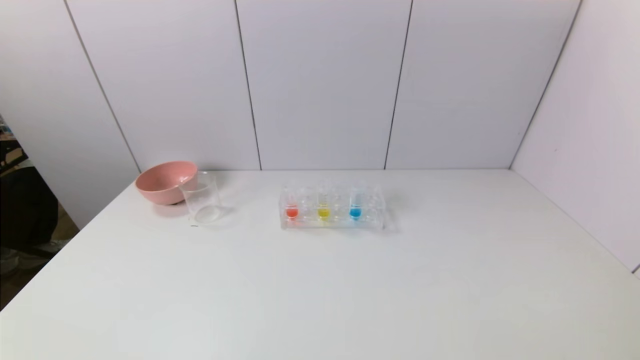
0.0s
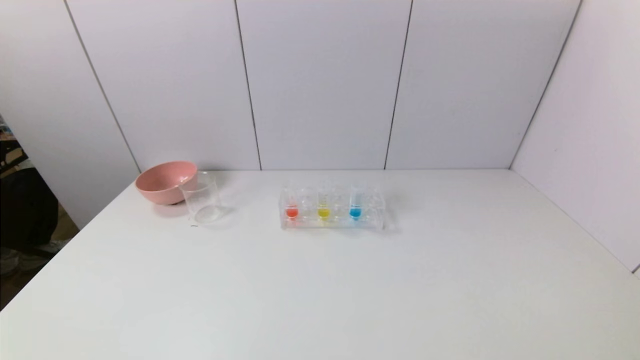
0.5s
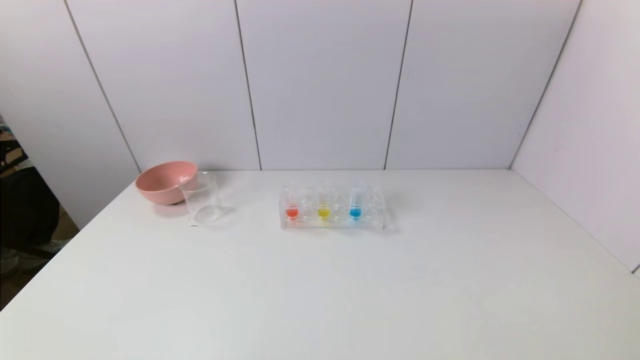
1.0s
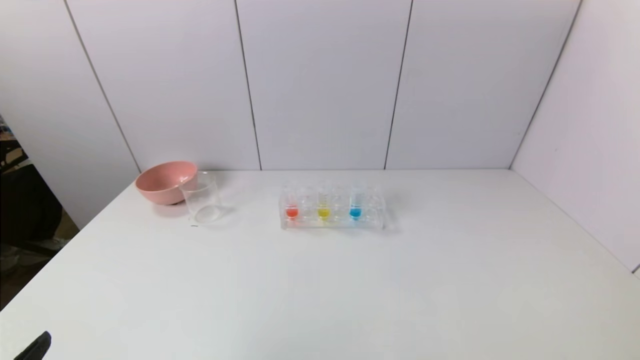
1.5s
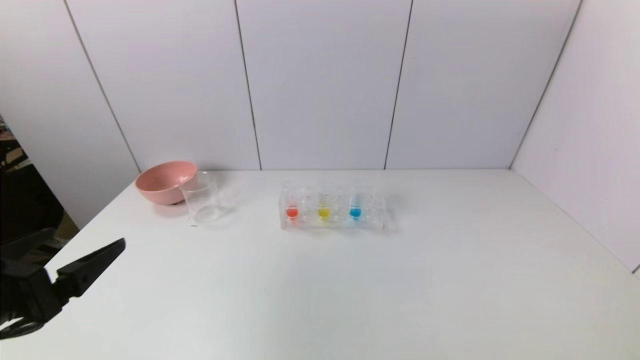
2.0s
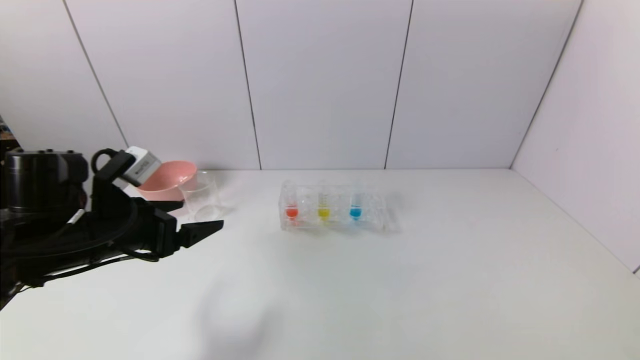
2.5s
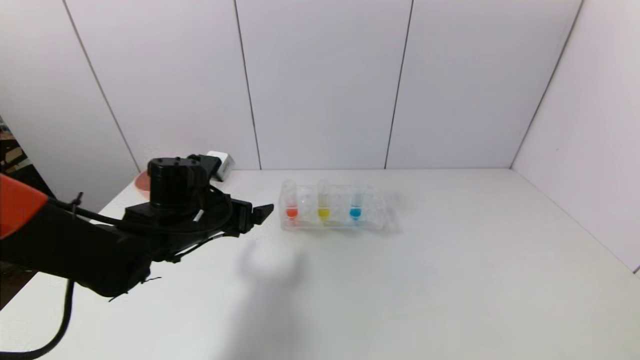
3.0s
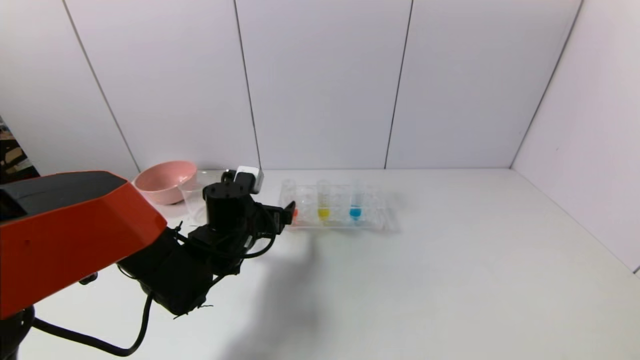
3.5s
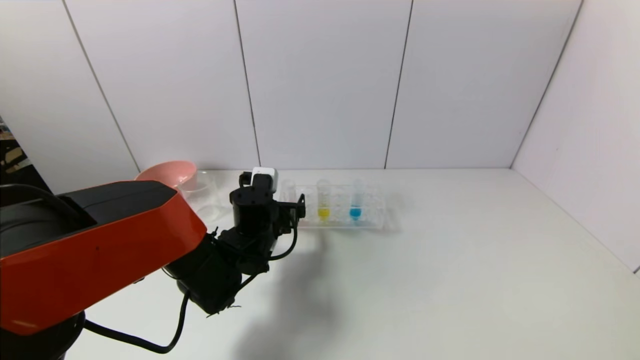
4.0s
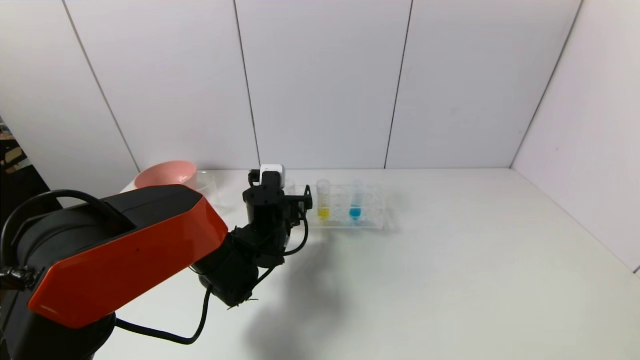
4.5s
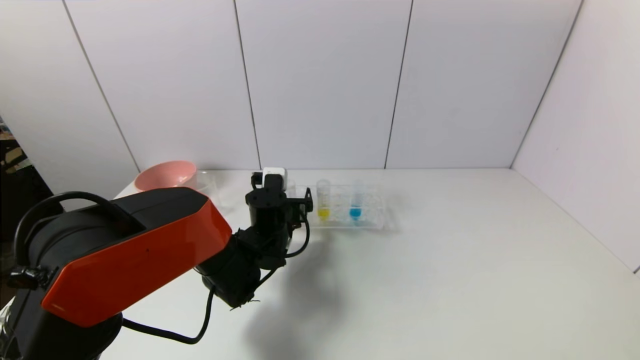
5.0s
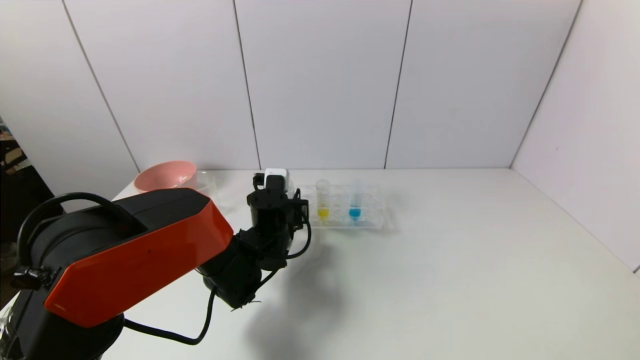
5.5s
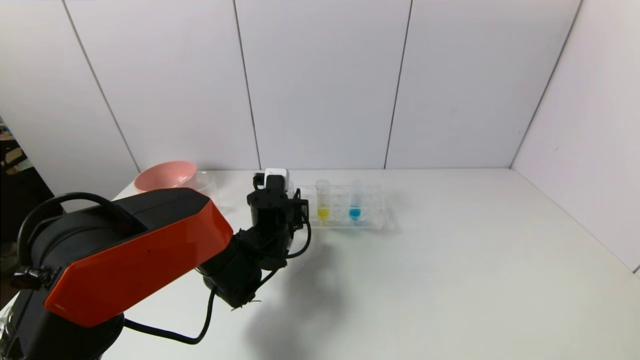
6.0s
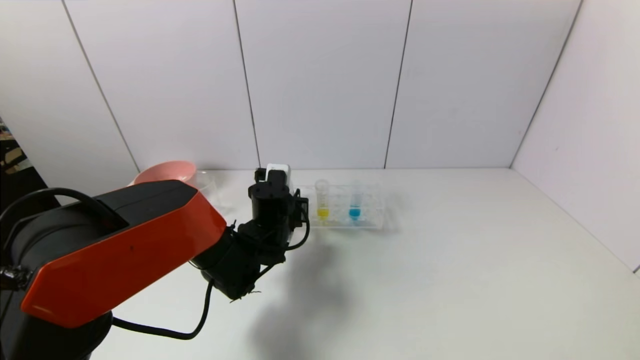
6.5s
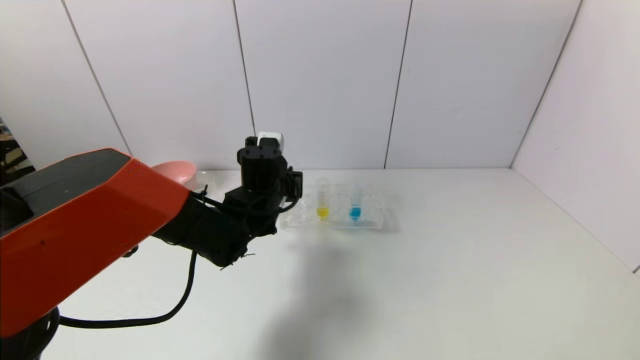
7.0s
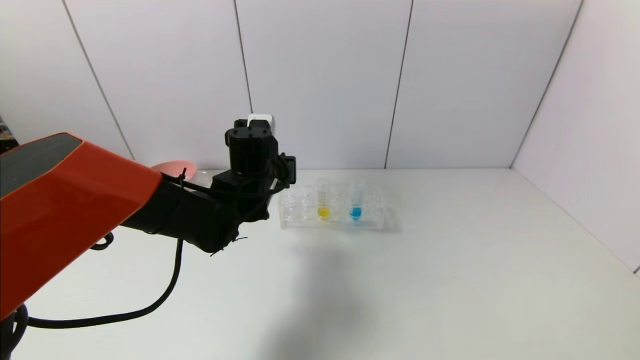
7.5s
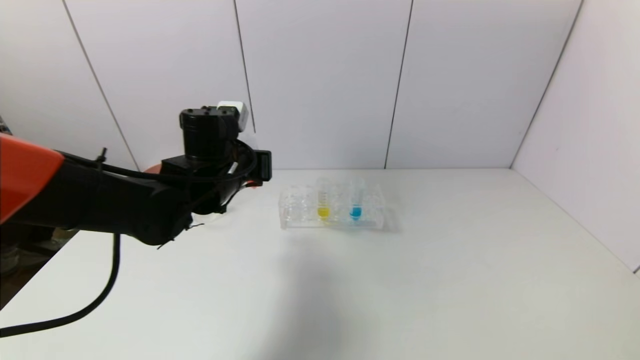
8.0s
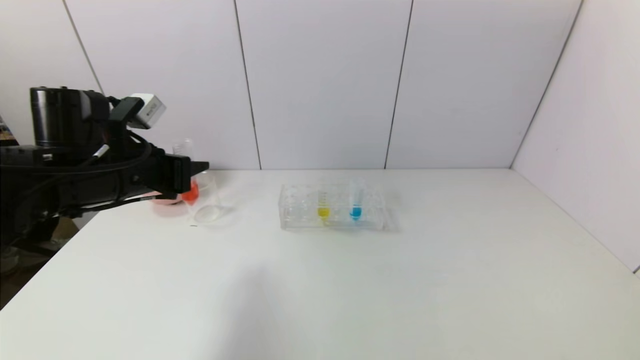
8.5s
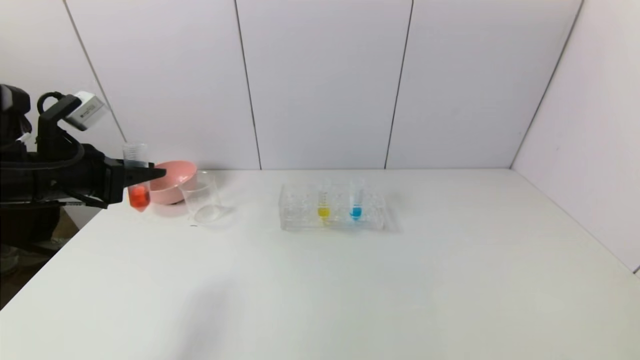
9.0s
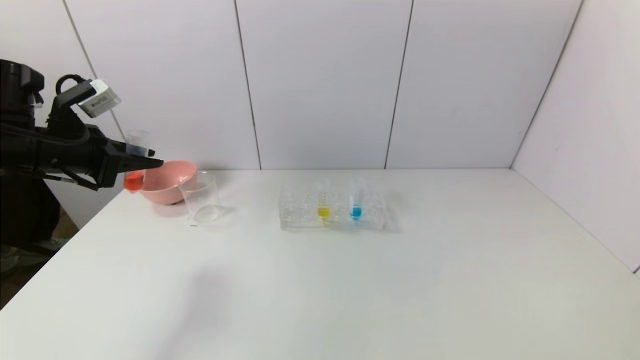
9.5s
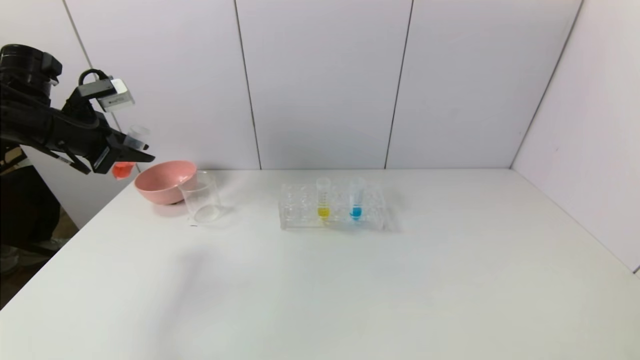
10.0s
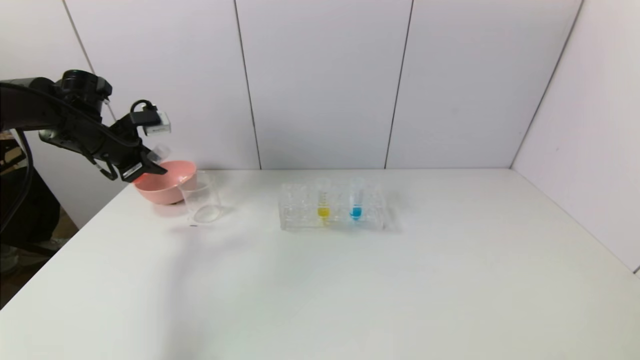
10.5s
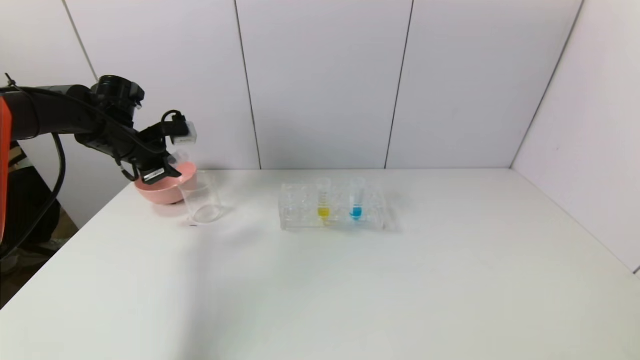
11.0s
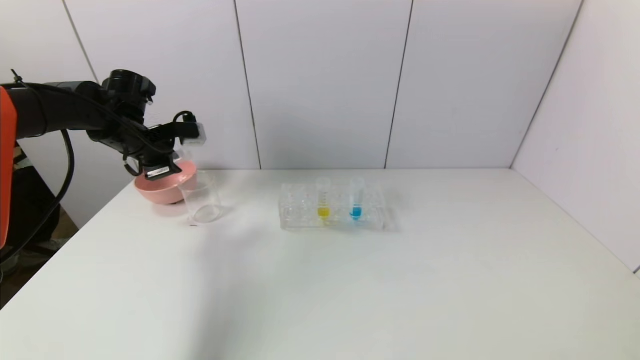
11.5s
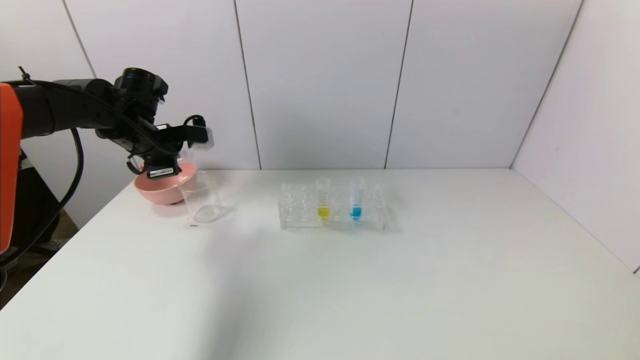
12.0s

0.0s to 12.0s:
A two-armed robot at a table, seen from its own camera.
Task of the whole recording: pick up the test tube with red pigment and the test tube with blue pigment by grippers and pour them into the container.
Step, 0.0s to 6.5s: Grasp the red reagent with the left gripper.
0.0s to 2.0s: The left gripper travels forward and upward by about 20 cm.
2.0s to 4.0s: The left gripper goes approximately 30 cm forward, to the right and downward.
4.0s to 6.0s: The left gripper closes up.
6.0s to 8.0s: The left gripper shifts about 15 cm upward and to the left.
8.0s to 10.0s: The left gripper moves to the left, about 25 cm.
10.0s to 12.0s: The left gripper heads to the right and forward, covering about 10 cm.

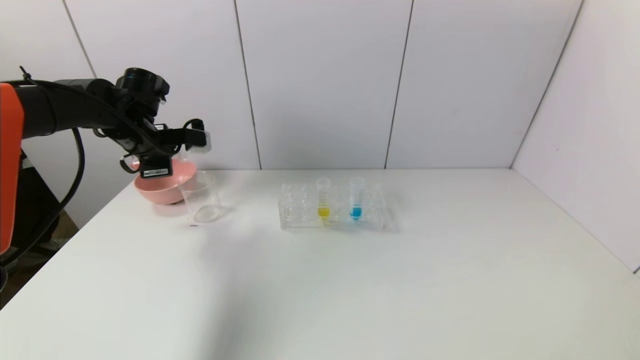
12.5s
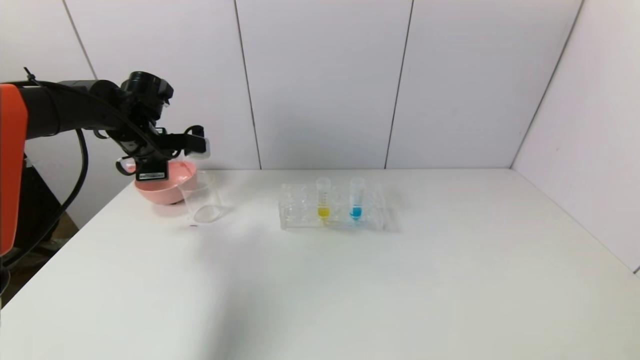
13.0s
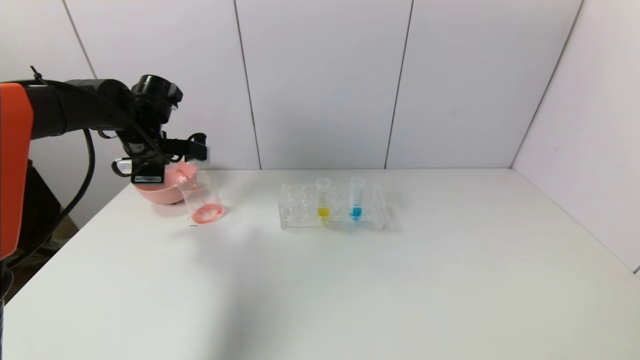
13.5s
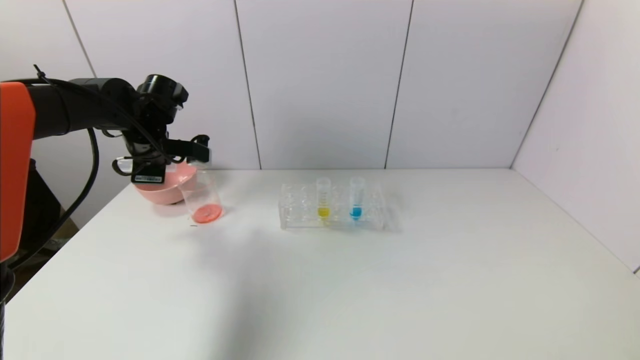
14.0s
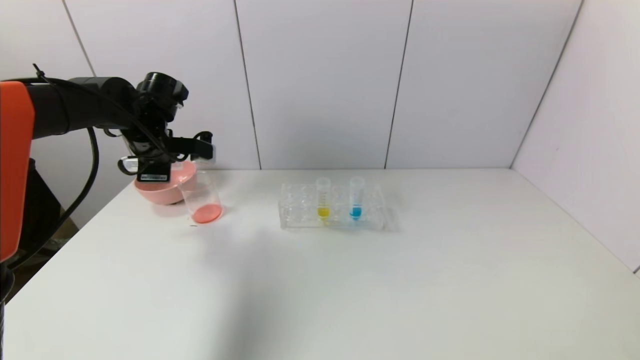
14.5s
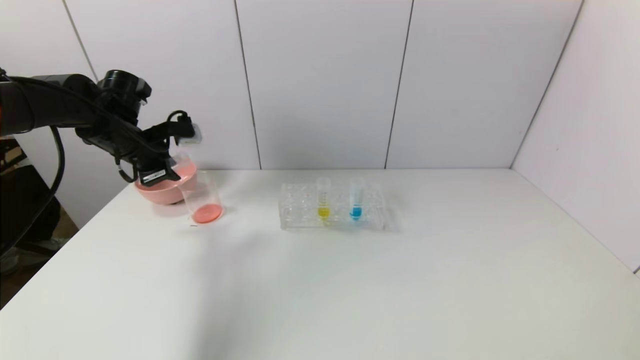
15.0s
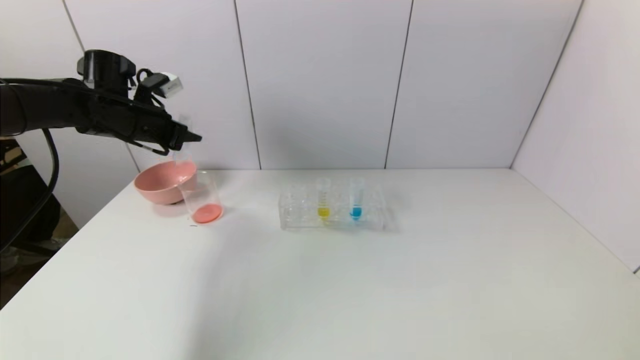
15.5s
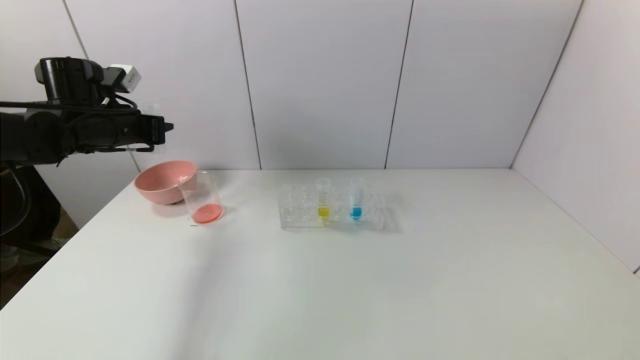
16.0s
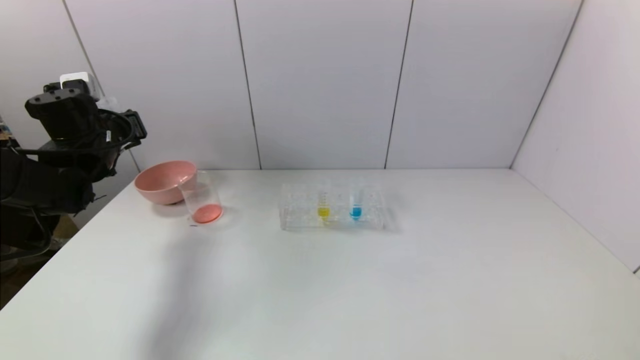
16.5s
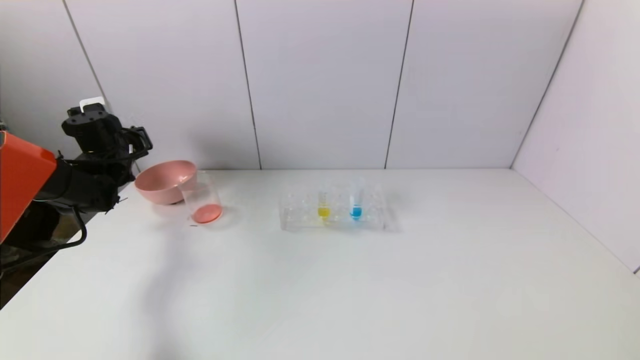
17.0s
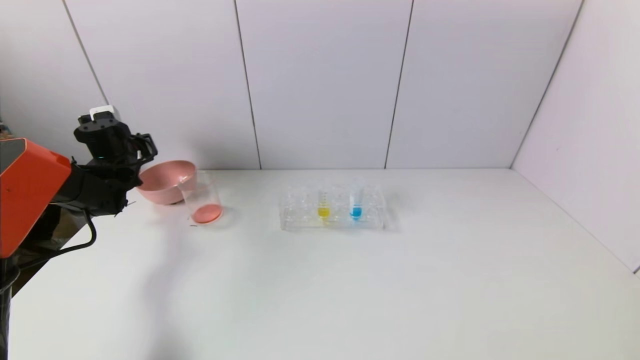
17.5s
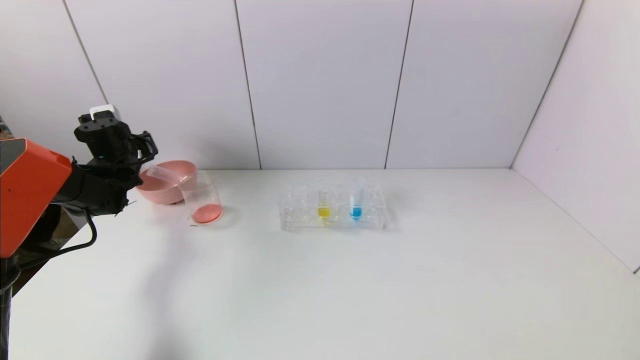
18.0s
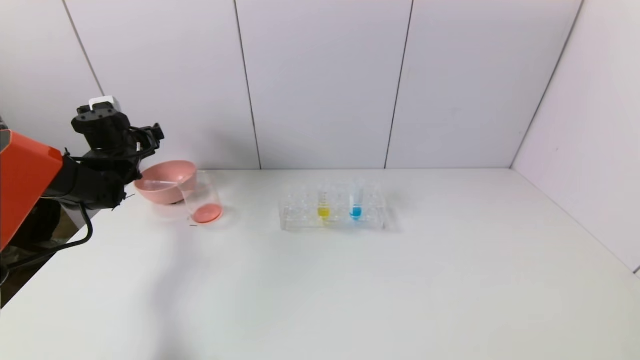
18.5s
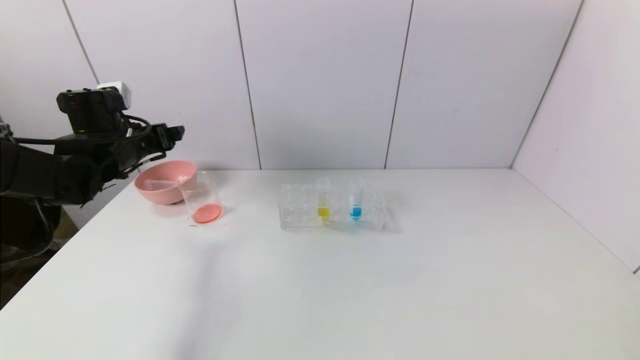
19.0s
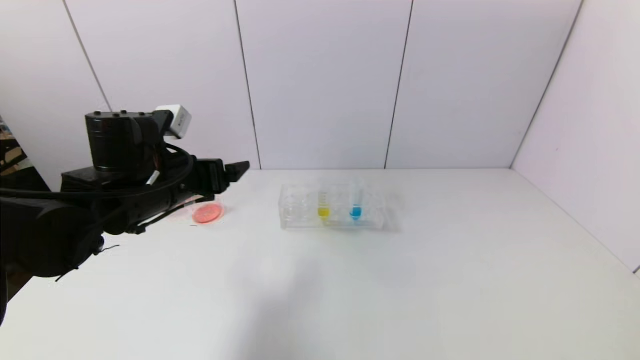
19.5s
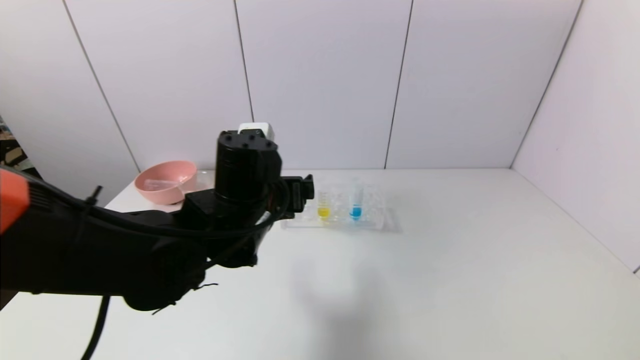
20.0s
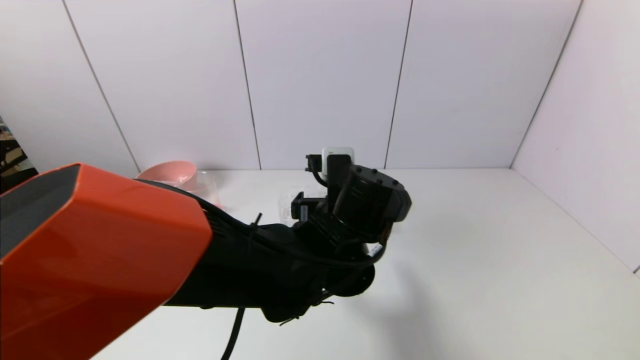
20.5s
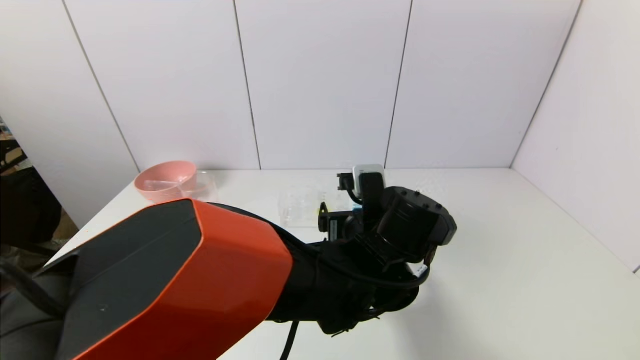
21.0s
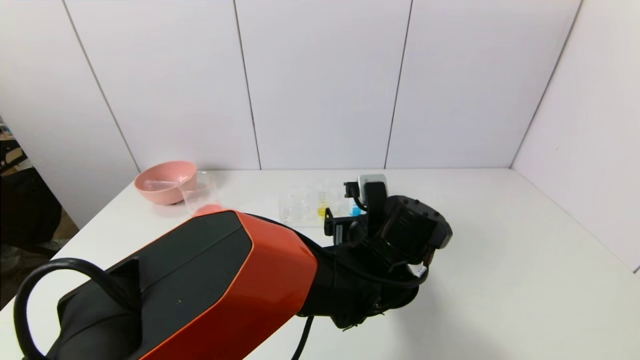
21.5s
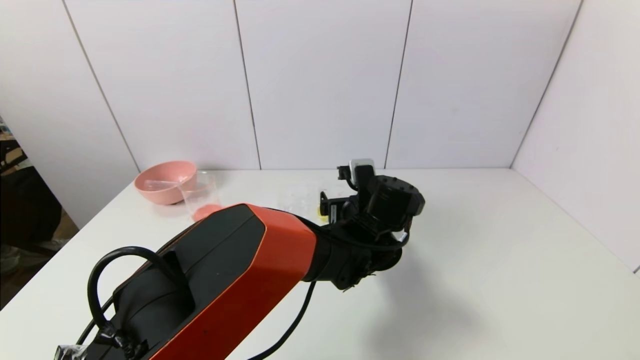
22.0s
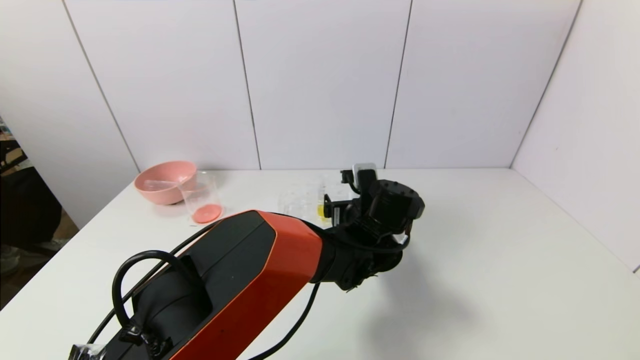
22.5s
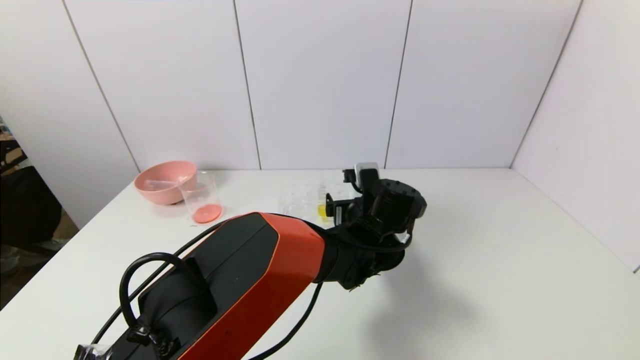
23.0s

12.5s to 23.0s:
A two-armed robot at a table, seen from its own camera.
Task of the whole recording: pick up the test tube with red pigment and the test tube with blue pigment by grippers and pour them into the container.
Step, 12.5s to 14.5s: Pour the red reagent into the graduated cylinder with the left gripper.
Step, 15.0s to 18.0s: Place the test tube into the bowl with the left gripper.
12.5s to 14.5s: There are only small adjustments of the grippers.
14.5s to 16.5s: The left gripper travels to the left by approximately 10 cm.
16.5s to 19.0s: The left gripper reaches approximately 5 cm forward, then returns, and opens.
19.0s to 21.0s: The left gripper moves to the right, roughly 40 cm.
21.0s to 23.0s: The left gripper goes about 10 cm forward.
